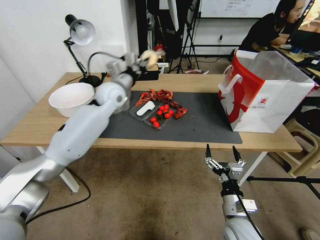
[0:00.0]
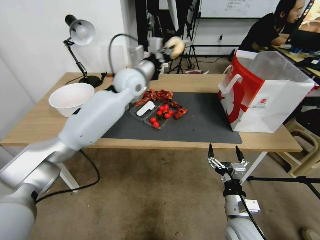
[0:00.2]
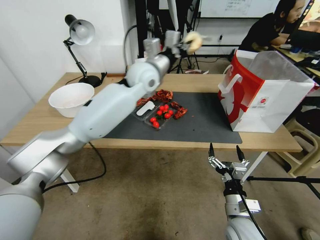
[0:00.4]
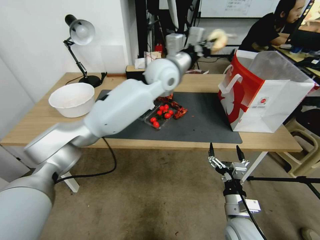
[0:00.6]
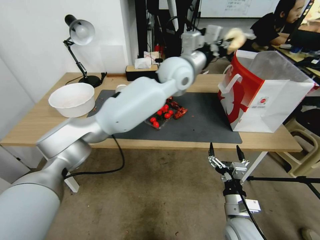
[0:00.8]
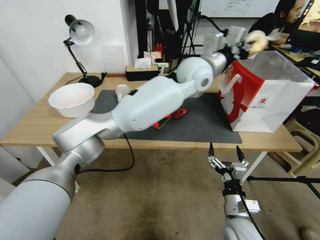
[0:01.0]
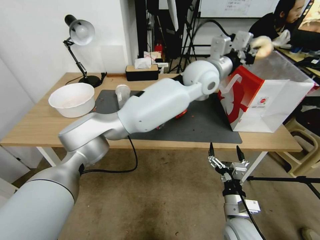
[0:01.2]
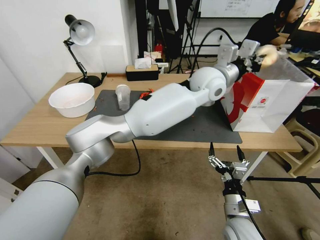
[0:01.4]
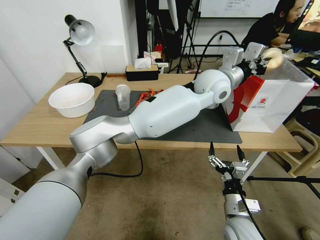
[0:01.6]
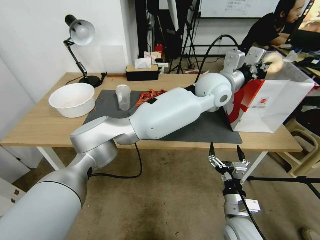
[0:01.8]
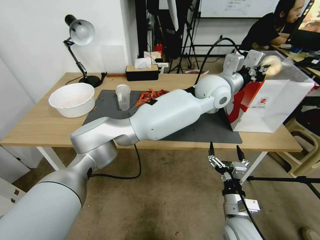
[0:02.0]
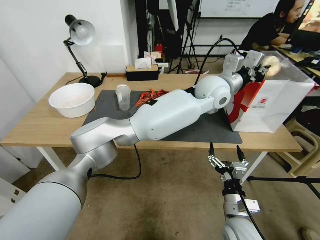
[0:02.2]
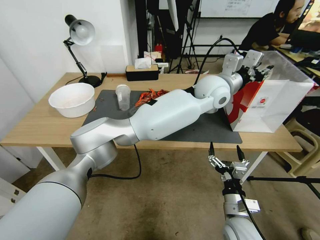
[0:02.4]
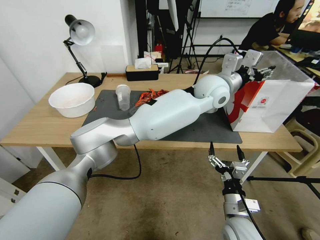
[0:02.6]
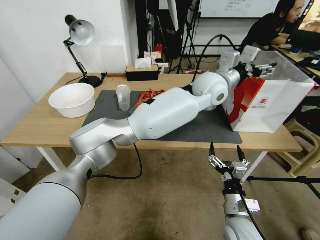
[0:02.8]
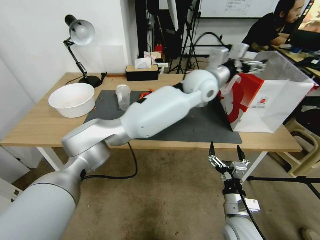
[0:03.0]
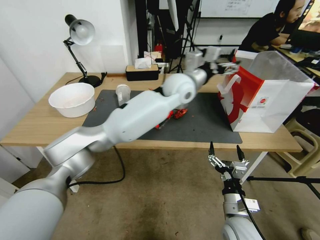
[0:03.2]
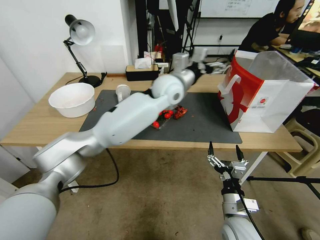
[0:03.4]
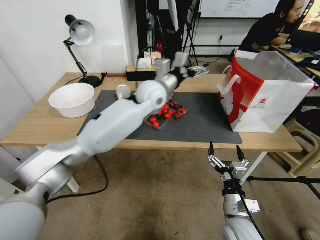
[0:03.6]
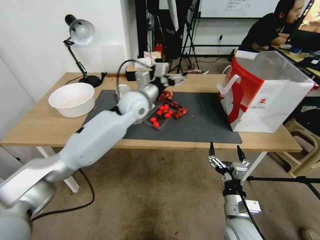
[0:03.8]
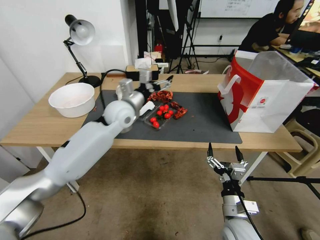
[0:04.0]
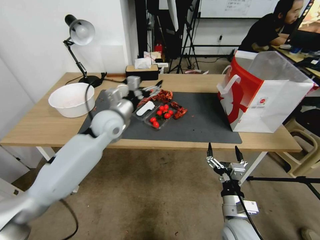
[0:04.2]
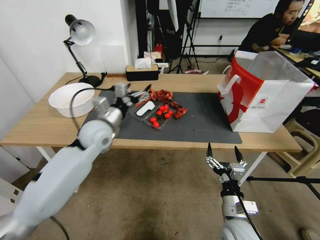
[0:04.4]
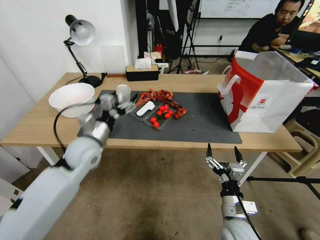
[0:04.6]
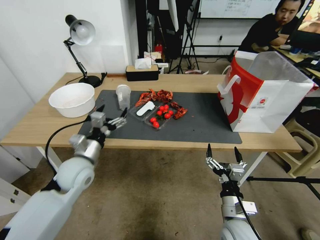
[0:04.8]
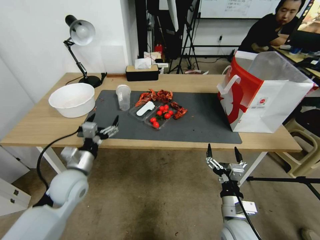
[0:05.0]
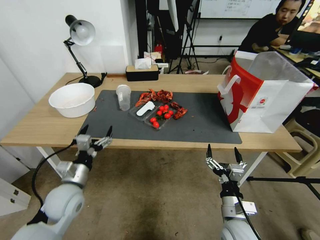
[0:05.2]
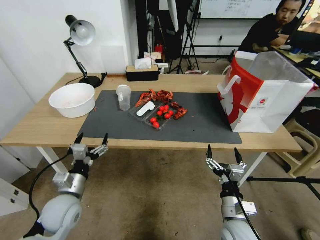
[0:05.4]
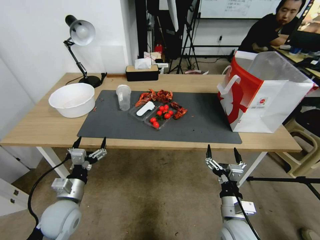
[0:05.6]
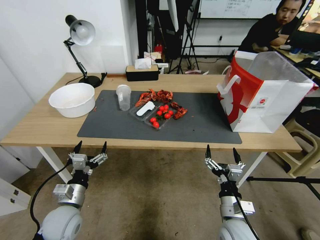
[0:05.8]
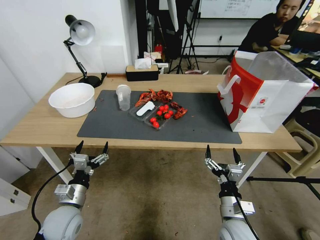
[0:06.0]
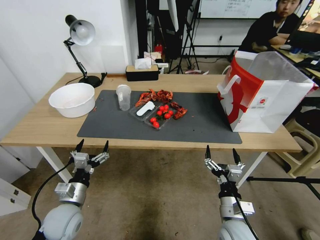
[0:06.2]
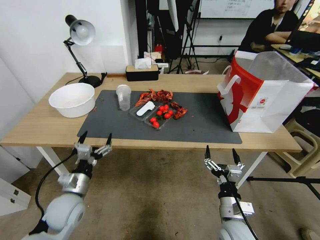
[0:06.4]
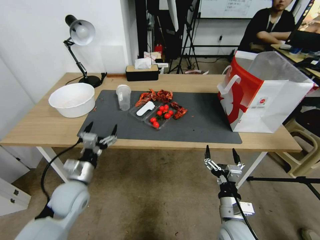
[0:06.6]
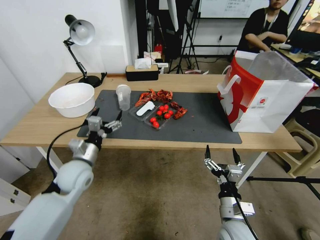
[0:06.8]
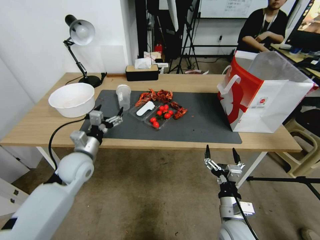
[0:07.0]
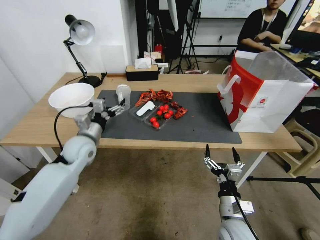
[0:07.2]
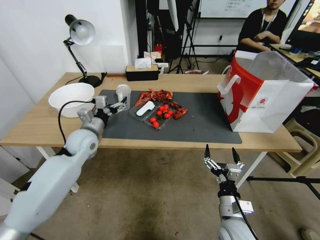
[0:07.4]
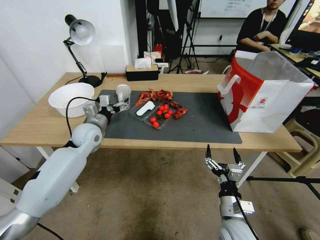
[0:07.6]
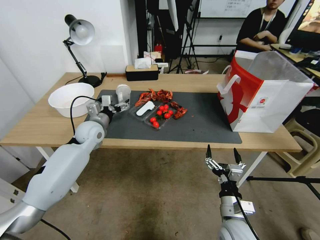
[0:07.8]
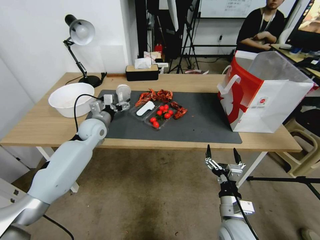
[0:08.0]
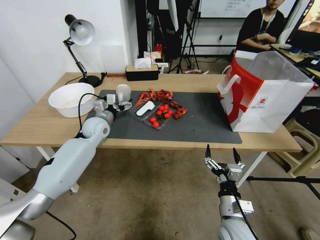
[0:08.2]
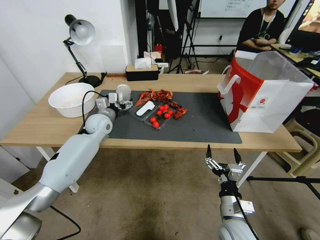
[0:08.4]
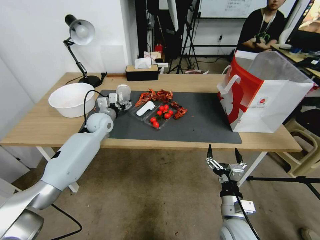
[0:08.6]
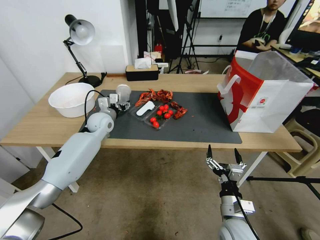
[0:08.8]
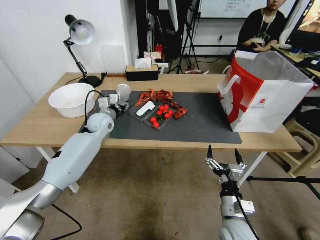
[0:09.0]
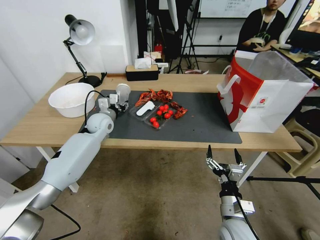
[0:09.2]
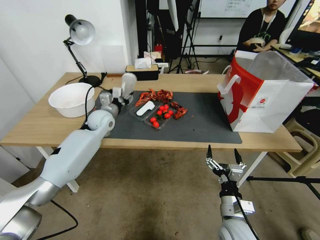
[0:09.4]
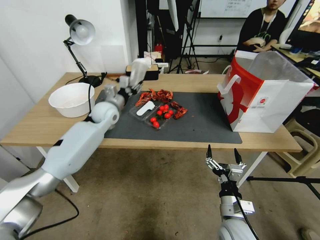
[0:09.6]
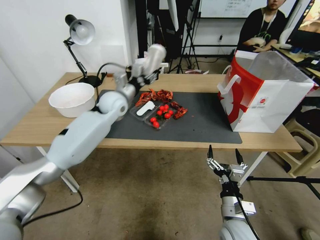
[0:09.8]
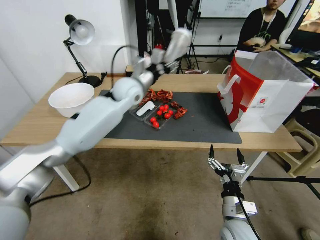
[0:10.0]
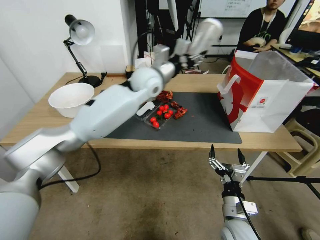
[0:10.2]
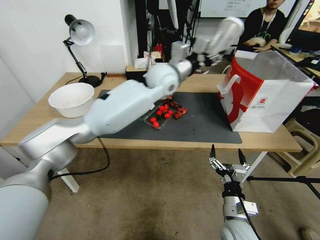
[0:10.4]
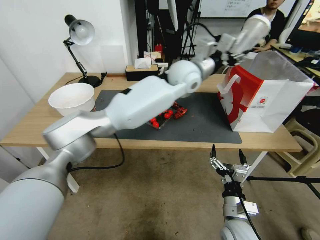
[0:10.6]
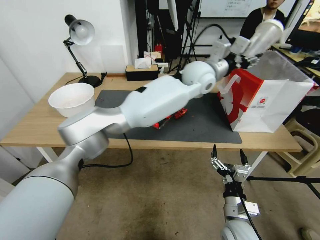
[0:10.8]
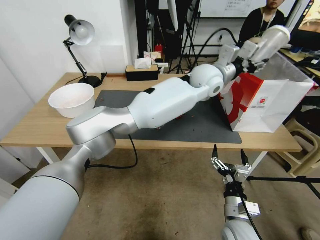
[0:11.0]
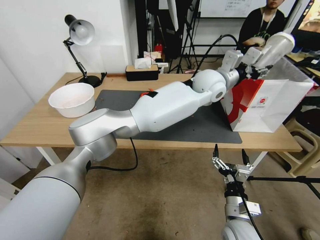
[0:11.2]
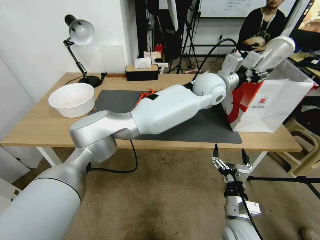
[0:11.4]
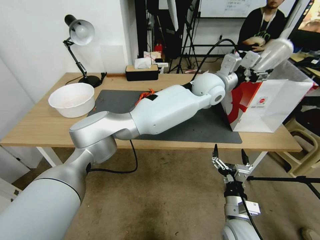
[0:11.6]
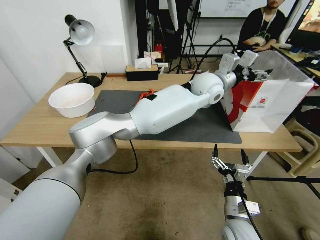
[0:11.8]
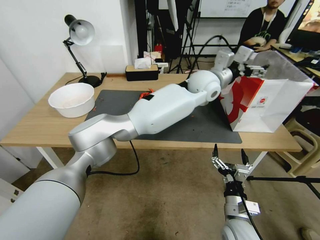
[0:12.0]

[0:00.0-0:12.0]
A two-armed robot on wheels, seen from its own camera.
0:00.0 to 0:01.6: The left gripper goes approximately 30 cm to the right.
0:01.6 to 0:03.0: The left gripper opens up.
0:03.0 to 0:04.4: The left gripper heads to the left and downward, covering about 35 cm.
0:04.4 to 0:06.0: The left gripper moves backward, downward and to the left, roughly 25 cm.
0:06.0 to 0:07.6: The left gripper goes approximately 25 cm forward and upward.
0:07.6 to 0:09.0: The left gripper moves forward, approximately 5 cm, and closes.
0:09.0 to 0:10.4: The left gripper is displaced to the right and upward by some 35 cm.
0:10.4 to 0:12.0: The left gripper travels to the right by approximately 10 cm, and opens.

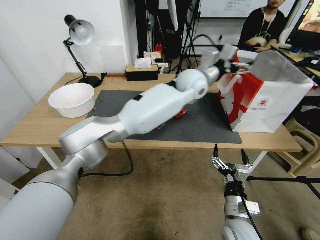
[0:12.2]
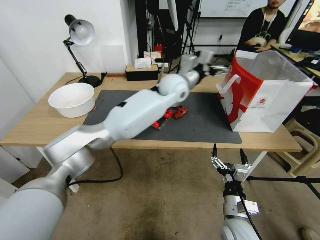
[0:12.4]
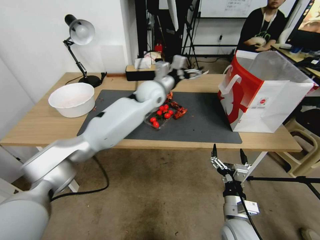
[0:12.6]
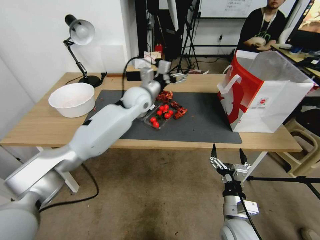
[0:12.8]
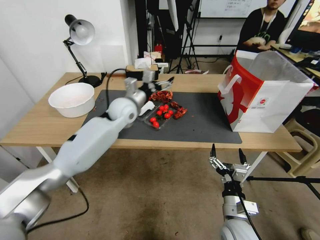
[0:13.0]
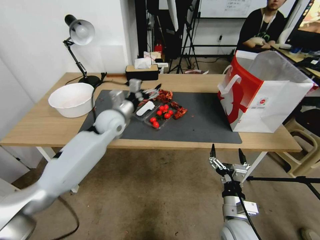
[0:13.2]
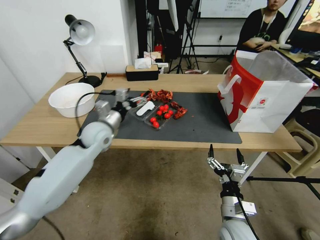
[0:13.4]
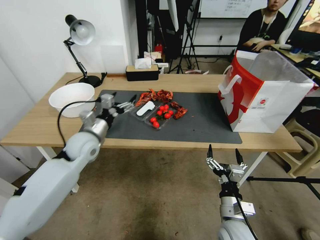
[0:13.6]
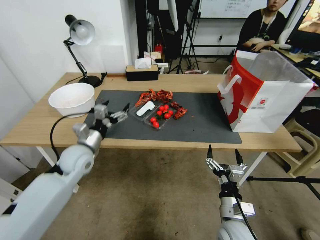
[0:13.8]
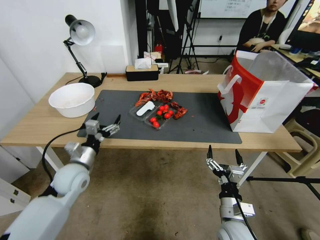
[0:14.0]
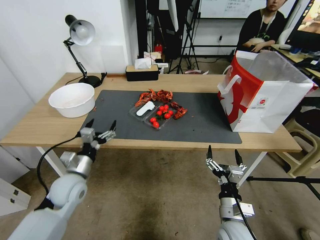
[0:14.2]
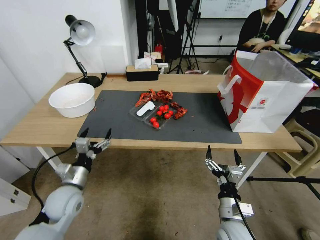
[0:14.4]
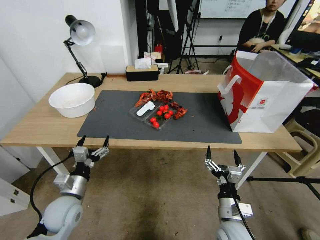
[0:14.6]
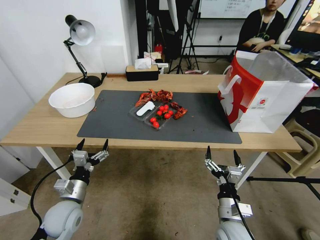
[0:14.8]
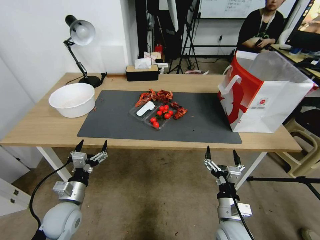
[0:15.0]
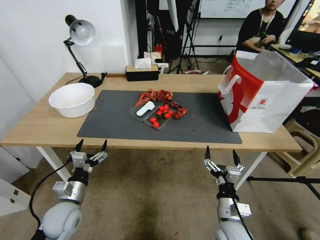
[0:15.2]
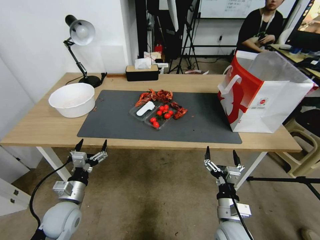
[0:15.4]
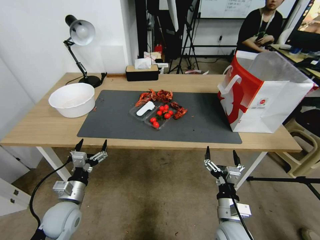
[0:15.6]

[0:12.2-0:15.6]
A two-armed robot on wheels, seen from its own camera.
0:12.2 to 0:13.8: The left gripper goes approximately 40 cm to the left and downward.
0:13.8 to 0:15.6: The left gripper moves backward and downward, about 20 cm.
